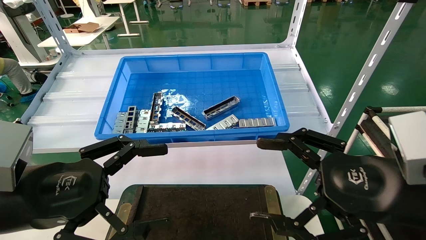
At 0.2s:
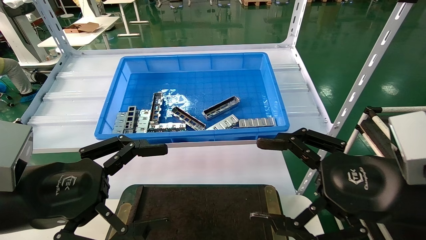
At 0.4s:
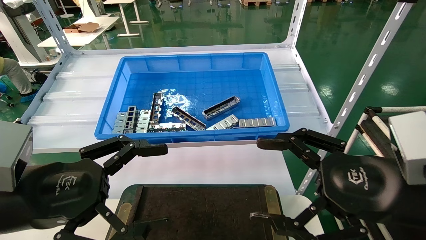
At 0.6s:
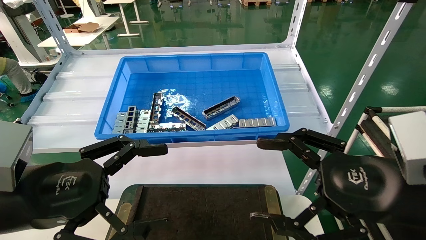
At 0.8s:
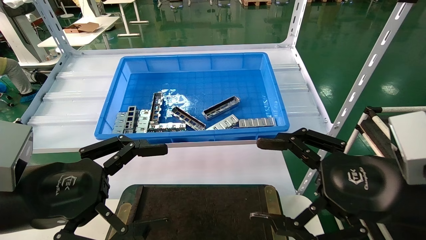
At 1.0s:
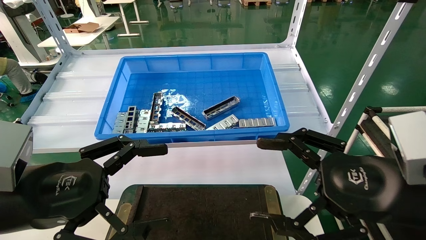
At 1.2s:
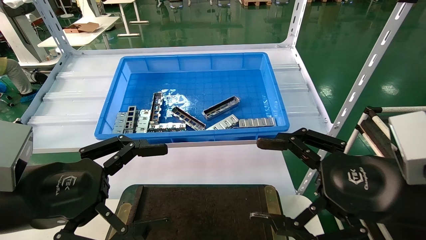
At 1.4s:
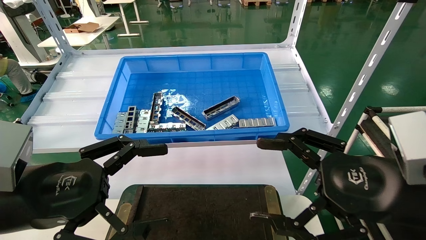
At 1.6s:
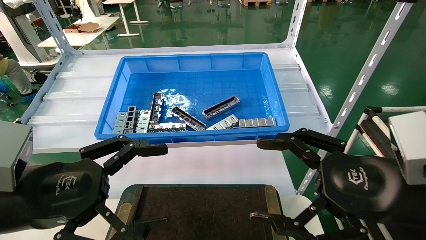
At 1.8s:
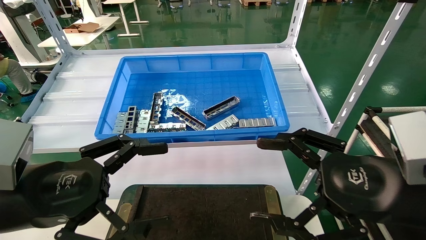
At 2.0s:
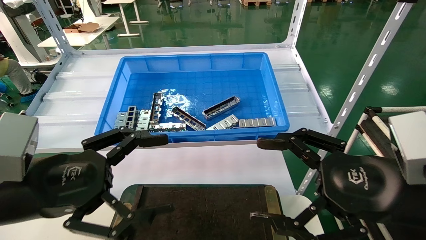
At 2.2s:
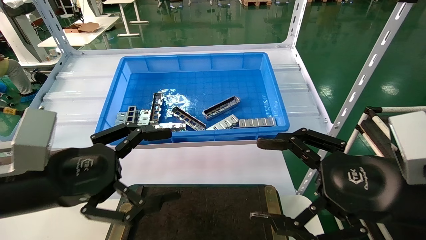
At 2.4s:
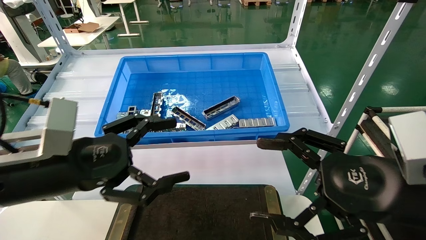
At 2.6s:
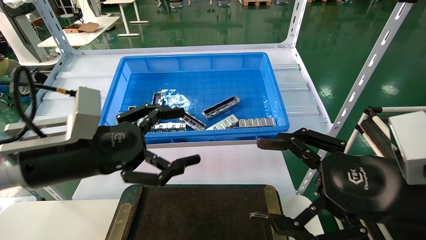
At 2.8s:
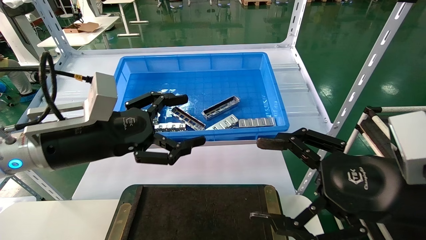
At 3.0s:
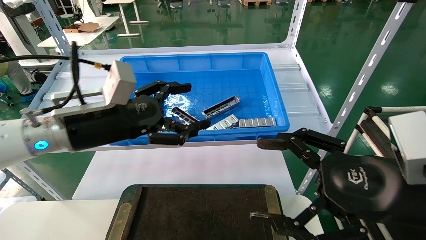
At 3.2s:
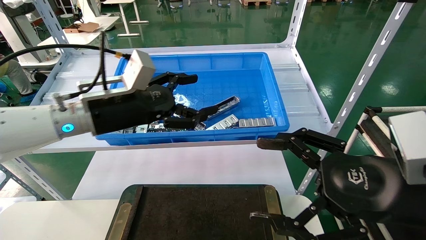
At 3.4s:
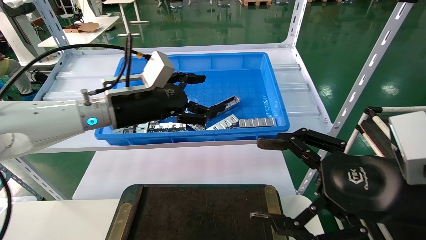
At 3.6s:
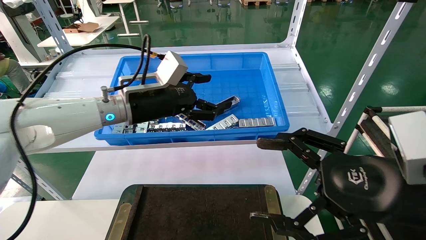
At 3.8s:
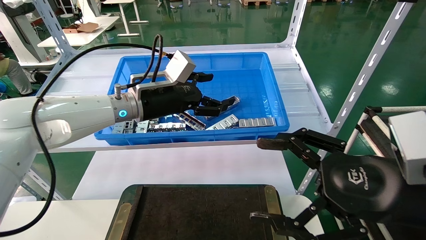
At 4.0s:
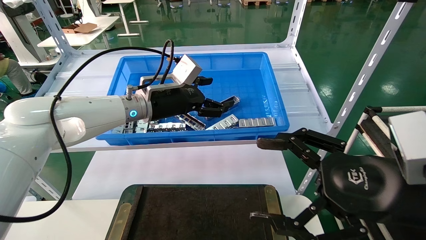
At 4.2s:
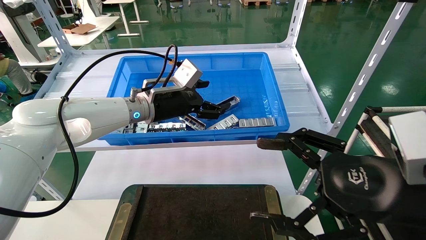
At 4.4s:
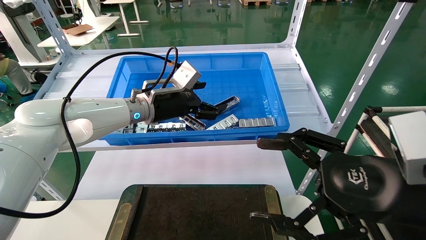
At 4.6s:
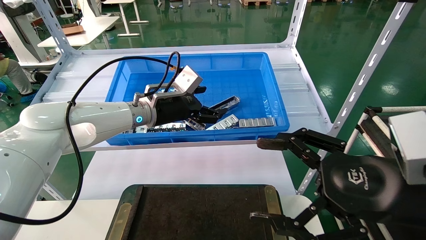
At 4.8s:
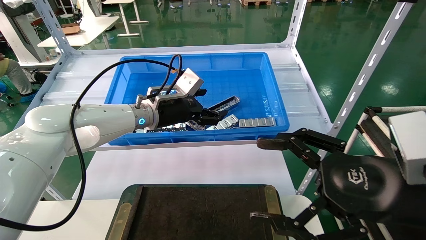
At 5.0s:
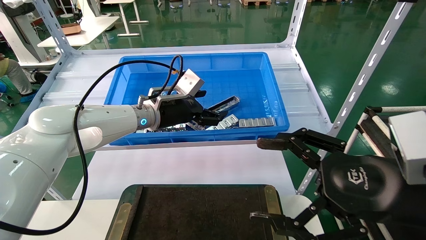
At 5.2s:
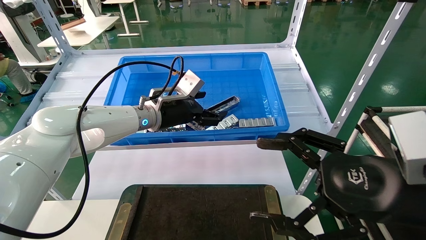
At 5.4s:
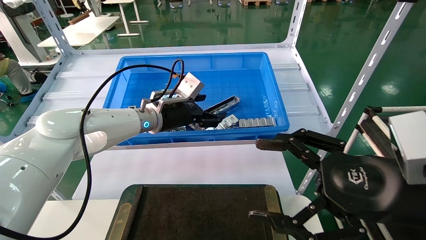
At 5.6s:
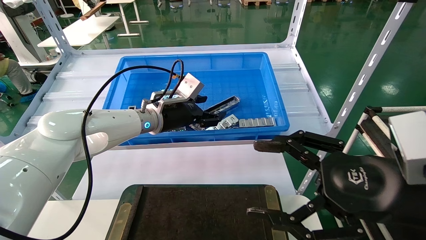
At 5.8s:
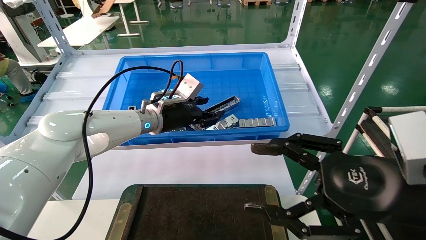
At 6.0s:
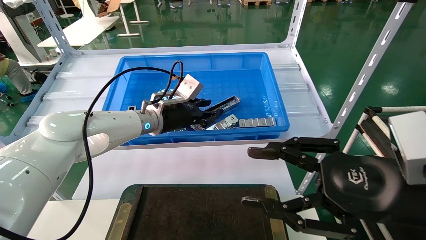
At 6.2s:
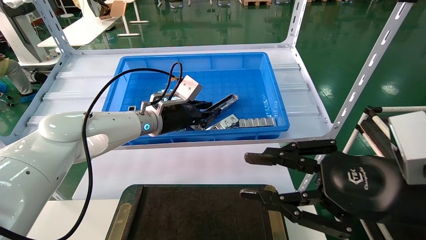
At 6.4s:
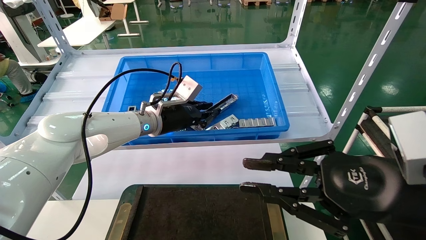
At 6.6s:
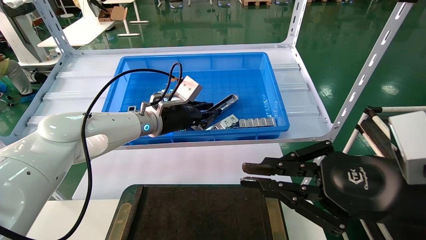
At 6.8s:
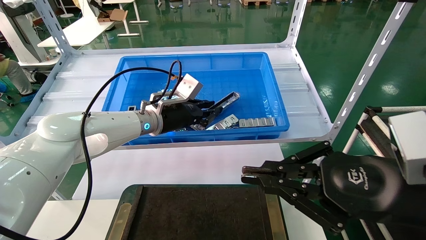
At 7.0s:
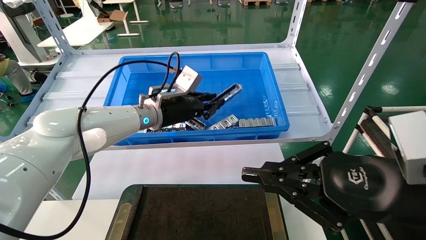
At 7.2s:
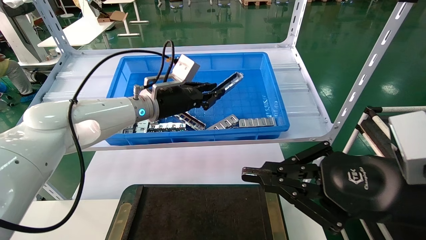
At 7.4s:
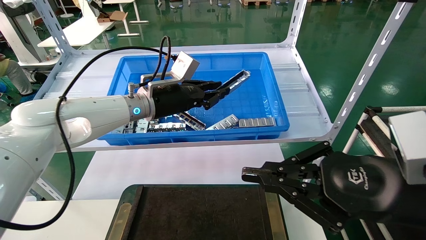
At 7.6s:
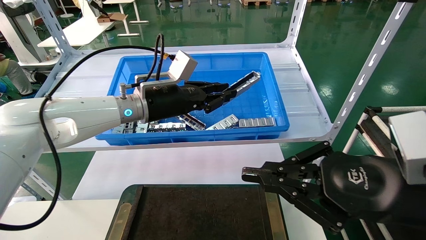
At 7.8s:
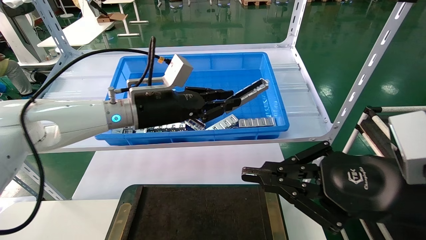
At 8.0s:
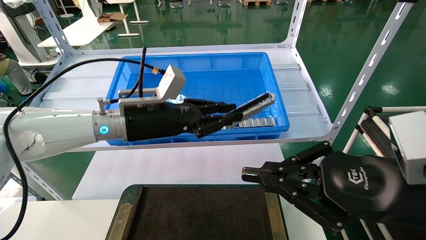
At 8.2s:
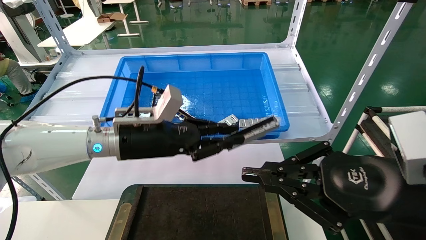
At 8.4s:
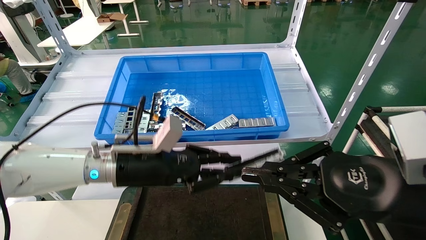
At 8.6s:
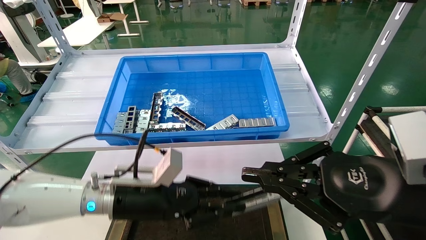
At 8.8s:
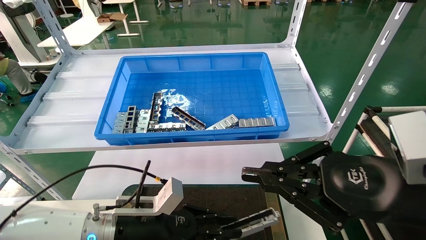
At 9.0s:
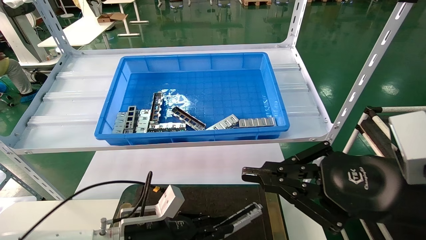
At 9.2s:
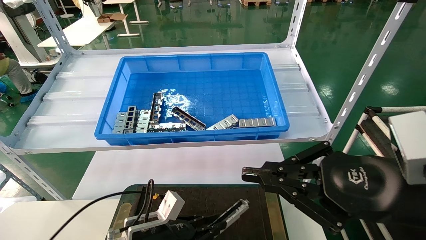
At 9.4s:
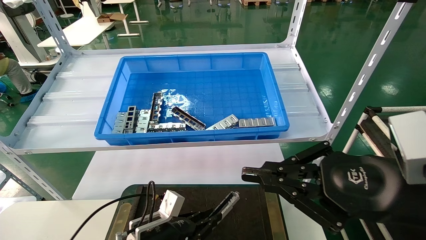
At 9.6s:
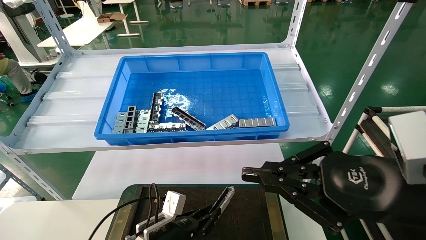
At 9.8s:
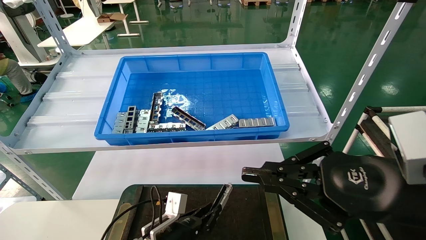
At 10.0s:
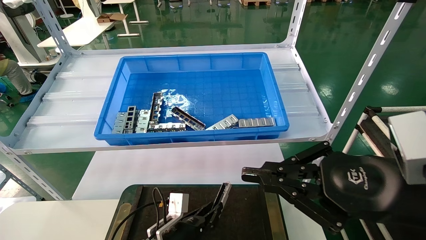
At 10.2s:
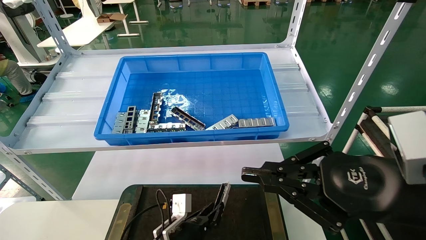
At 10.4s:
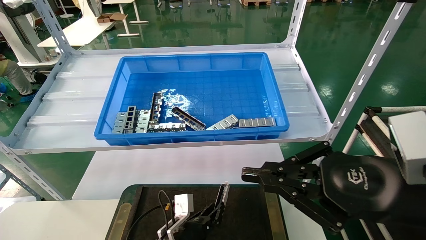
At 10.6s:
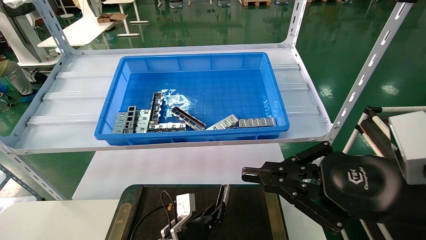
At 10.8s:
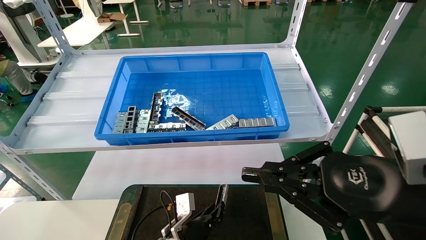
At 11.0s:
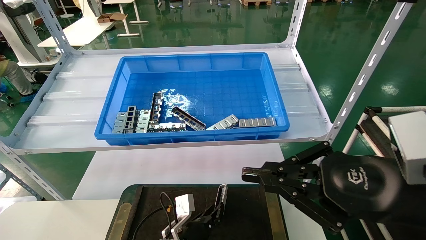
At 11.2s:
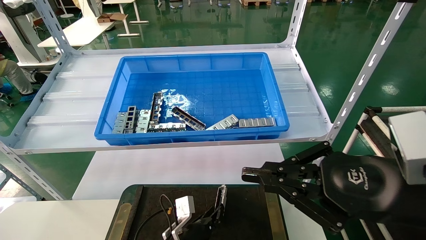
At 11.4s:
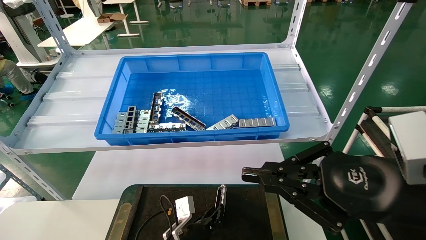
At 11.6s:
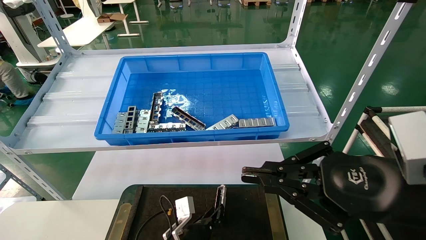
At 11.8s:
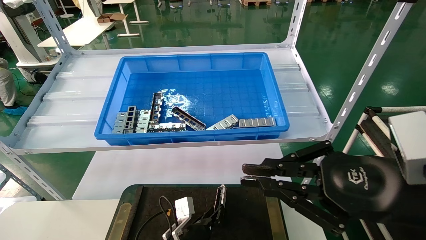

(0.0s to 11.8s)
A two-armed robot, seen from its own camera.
Task of the whole recording: Grasp the part with one hand and place it on the black container.
Step, 2.0s - 6.2s: Pick up the front USB bracket from the feeding area.
0.0s - 1.4s: The two grippers keep their place.
1.4s - 3.0s: The left gripper shifts some 15 cm forward.
3.0s - 4.4s: The left gripper travels forward and to the right by about 15 cm.
4.4s - 6.0s: The left gripper closes up.
6.0s - 7.4s: The left gripper closes its fingers. The right gripper closes.
7.4s - 8.8s: The left gripper travels downward and backward by roughly 25 cm.
8.8s - 10.4s: The left gripper goes roughly 15 cm downward and to the right.
10.4s - 11.8s: The grippers move only a little.

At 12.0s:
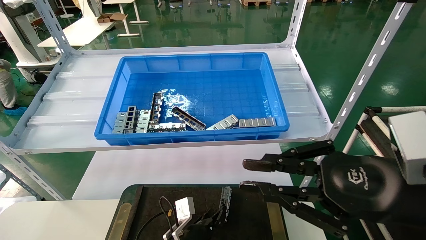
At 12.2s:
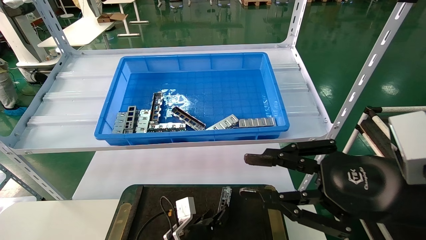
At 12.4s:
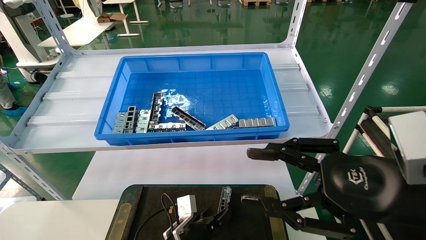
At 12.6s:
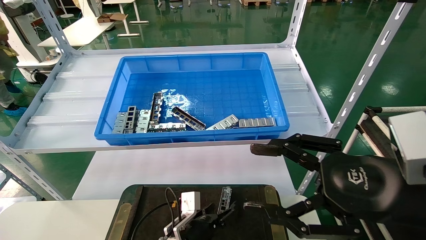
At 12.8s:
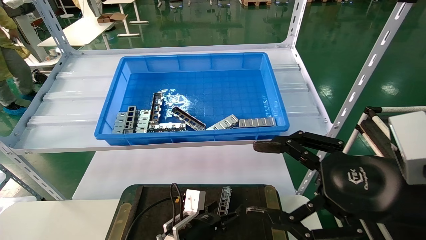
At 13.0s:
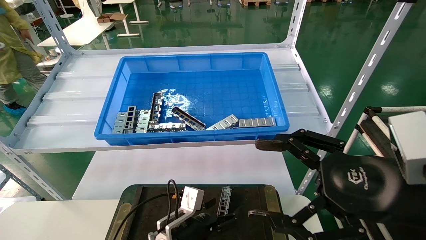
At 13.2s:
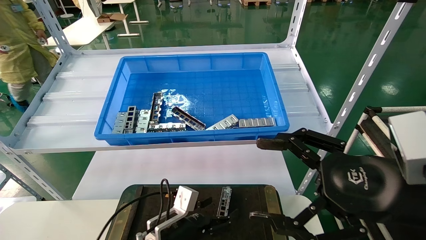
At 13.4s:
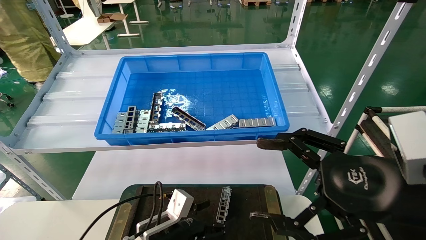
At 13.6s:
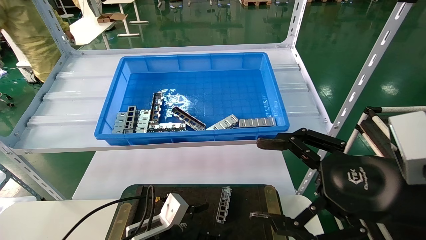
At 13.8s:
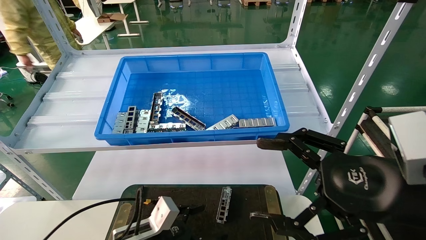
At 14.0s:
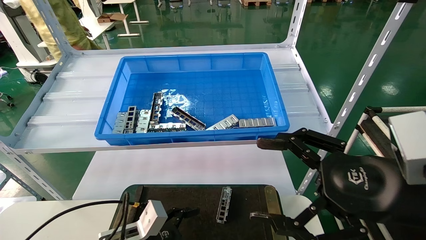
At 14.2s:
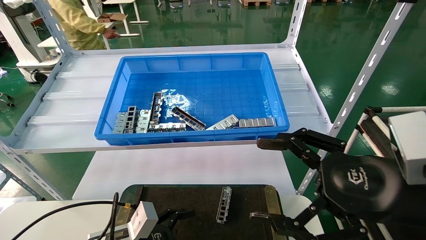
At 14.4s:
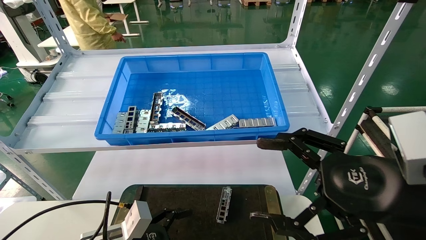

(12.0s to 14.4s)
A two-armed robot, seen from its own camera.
Task of the whole recording: Grasp the part with one hand and place it on the black container.
12.0s - 13.2s: The left gripper moves upward, about 5 cm, and opens its fingers, while the right gripper opens.
13.2s - 14.4s: The left gripper goes some 10 cm to the left and backward.

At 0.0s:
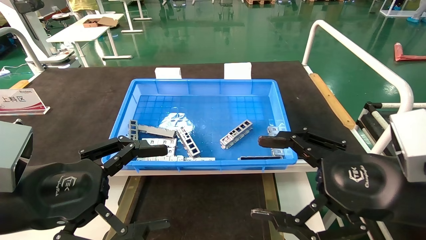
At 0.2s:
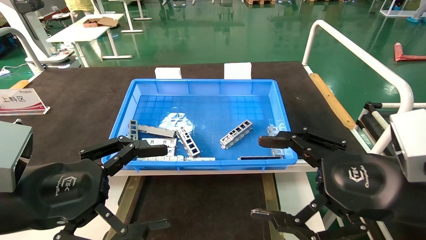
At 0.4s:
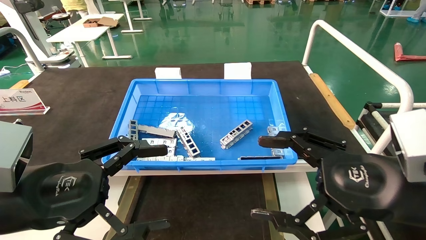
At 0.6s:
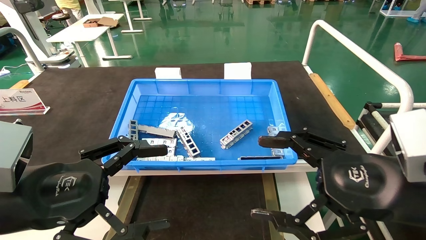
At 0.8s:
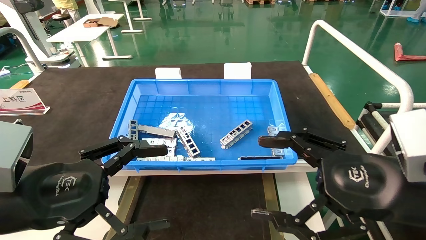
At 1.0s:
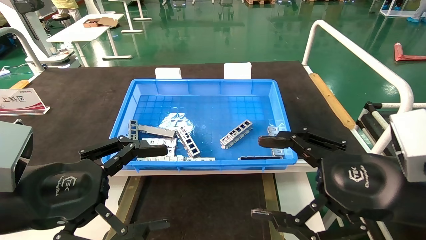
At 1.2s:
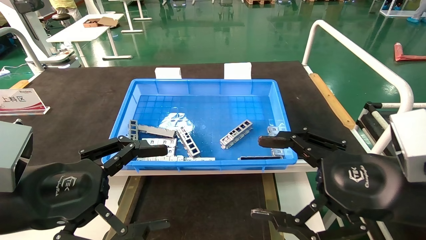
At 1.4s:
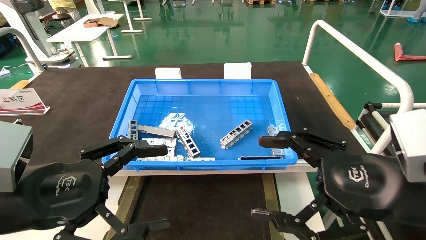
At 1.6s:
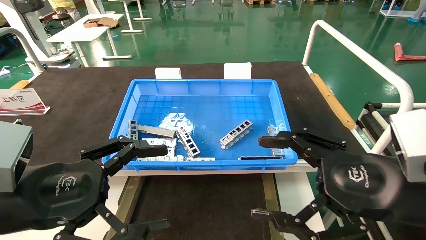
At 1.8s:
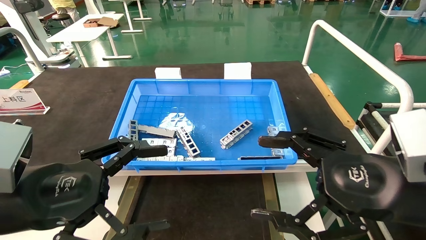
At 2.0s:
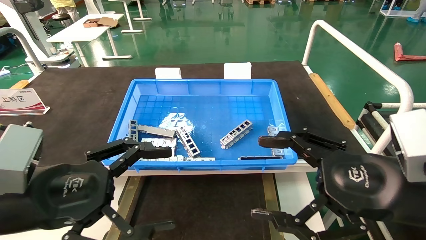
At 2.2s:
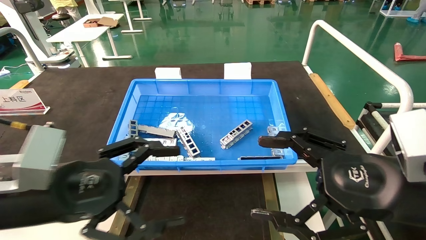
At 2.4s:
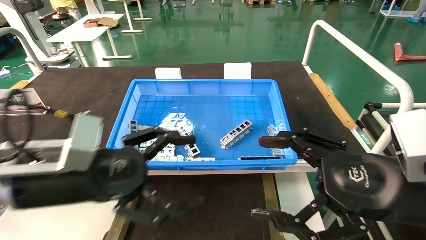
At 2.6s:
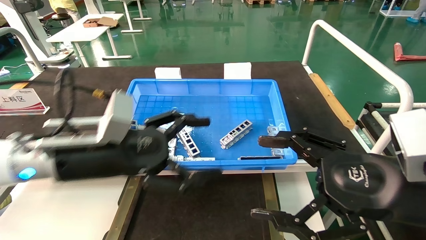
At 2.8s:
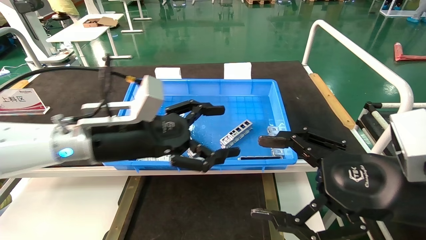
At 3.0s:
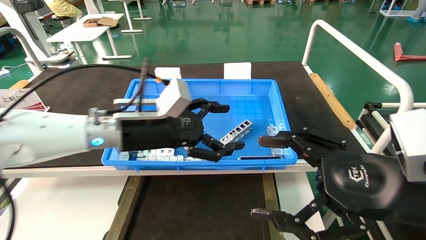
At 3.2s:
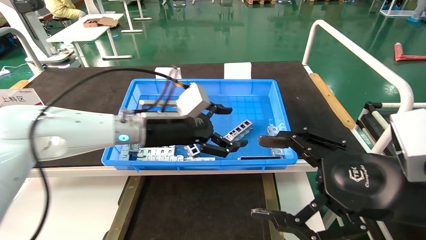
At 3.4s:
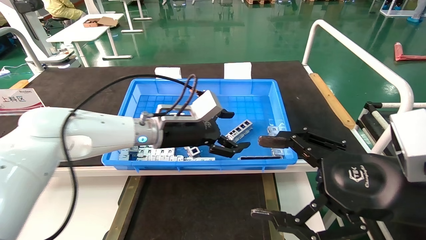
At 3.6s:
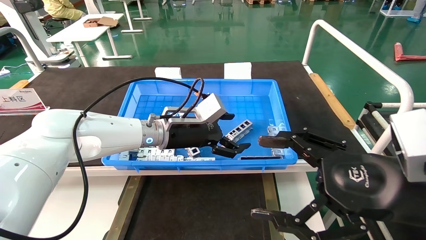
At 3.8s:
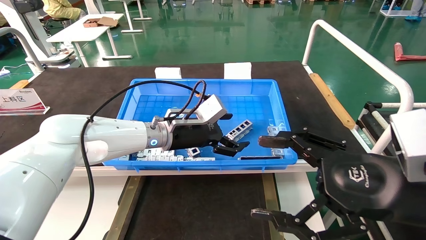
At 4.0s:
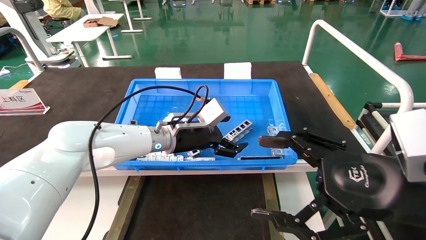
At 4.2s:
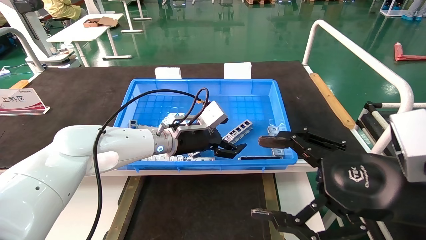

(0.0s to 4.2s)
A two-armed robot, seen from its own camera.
Task of the whole recording: Grasp the part with one hand and place it on the black container.
0.0s - 1.4s: Both grippers stay put.
1.4s - 2.8s: The left gripper shifts roughly 15 cm forward and to the right.
2.8s - 4.2s: The left gripper travels forward, to the right and downward by about 15 cm.
